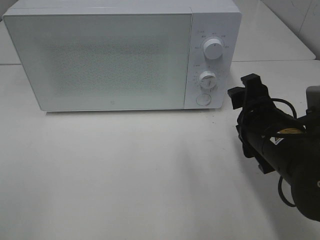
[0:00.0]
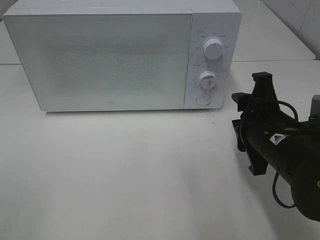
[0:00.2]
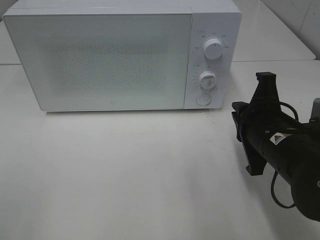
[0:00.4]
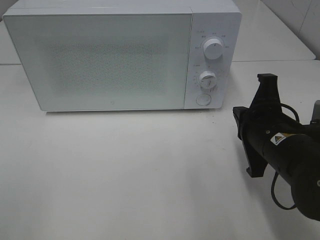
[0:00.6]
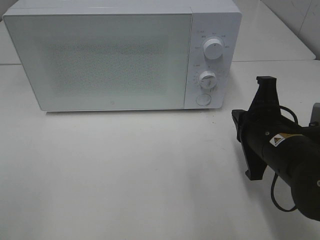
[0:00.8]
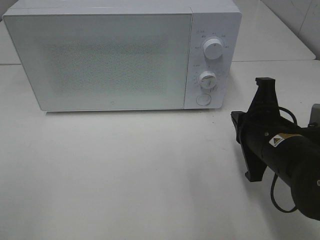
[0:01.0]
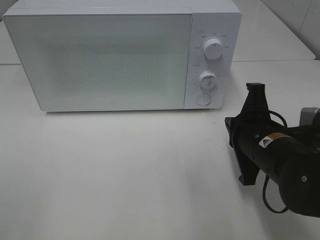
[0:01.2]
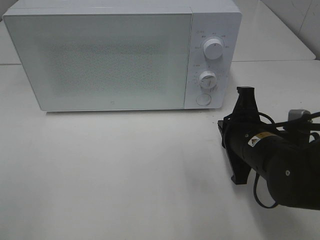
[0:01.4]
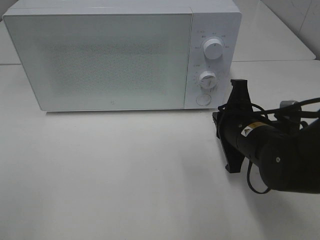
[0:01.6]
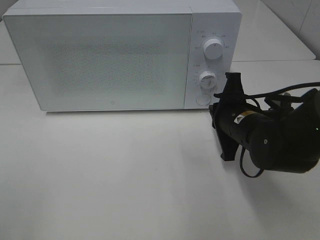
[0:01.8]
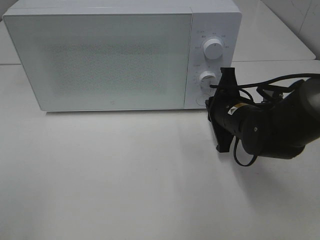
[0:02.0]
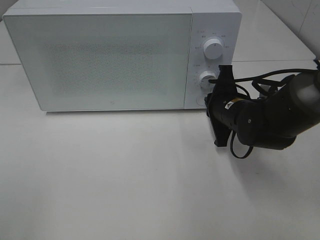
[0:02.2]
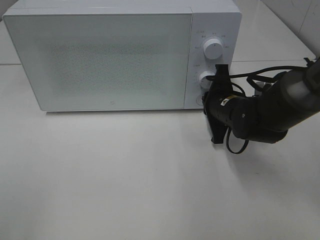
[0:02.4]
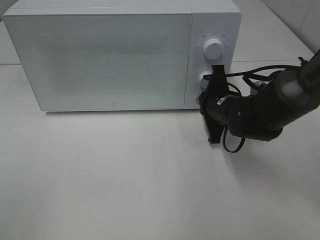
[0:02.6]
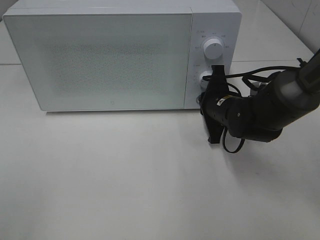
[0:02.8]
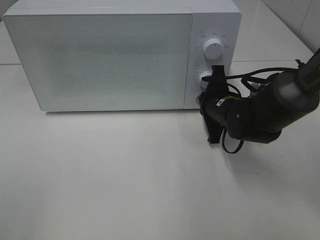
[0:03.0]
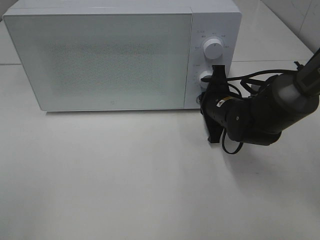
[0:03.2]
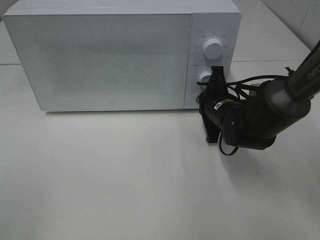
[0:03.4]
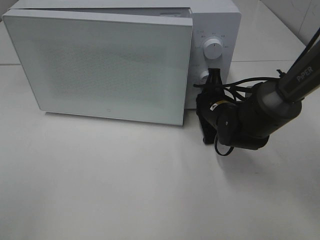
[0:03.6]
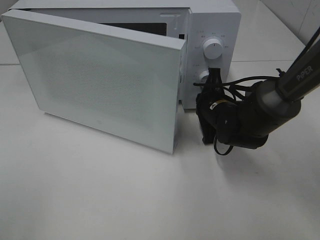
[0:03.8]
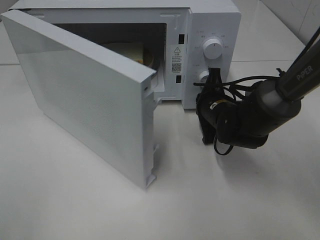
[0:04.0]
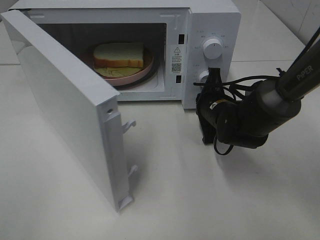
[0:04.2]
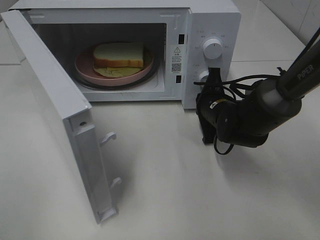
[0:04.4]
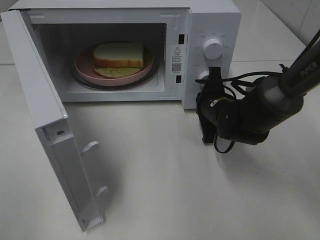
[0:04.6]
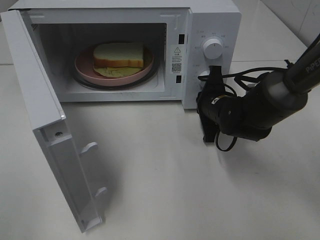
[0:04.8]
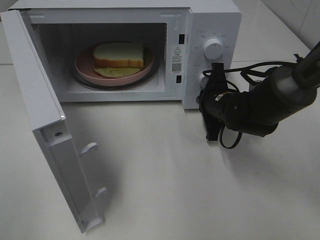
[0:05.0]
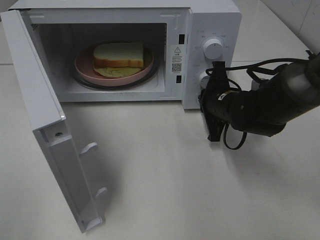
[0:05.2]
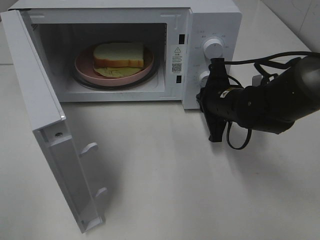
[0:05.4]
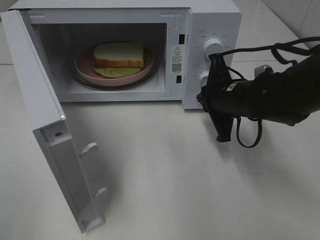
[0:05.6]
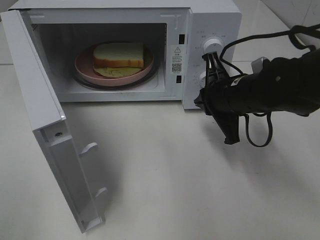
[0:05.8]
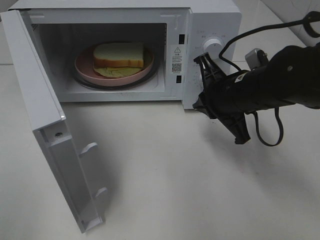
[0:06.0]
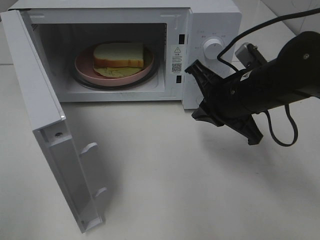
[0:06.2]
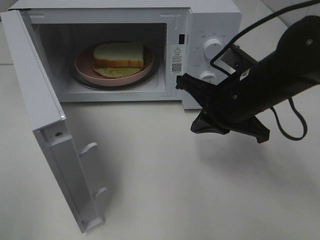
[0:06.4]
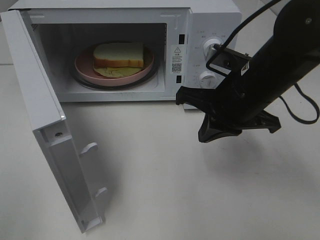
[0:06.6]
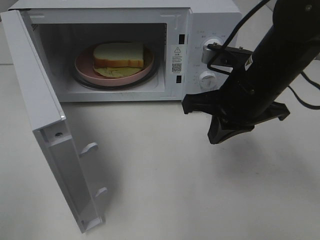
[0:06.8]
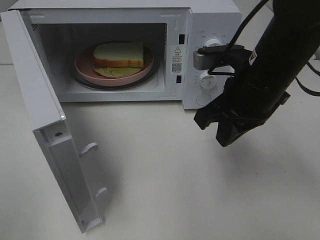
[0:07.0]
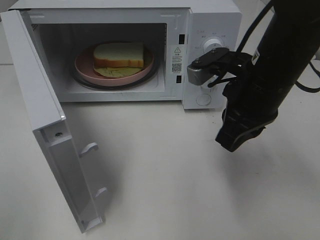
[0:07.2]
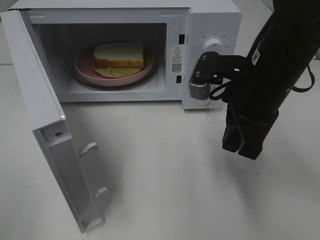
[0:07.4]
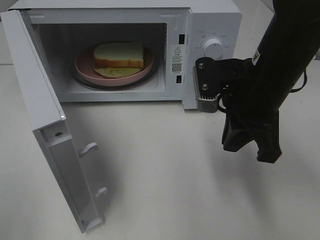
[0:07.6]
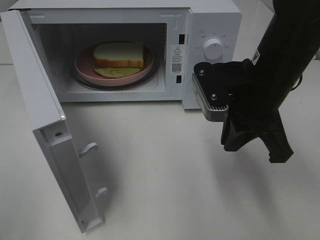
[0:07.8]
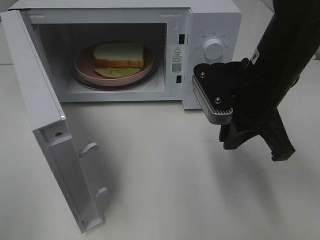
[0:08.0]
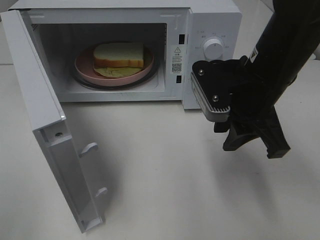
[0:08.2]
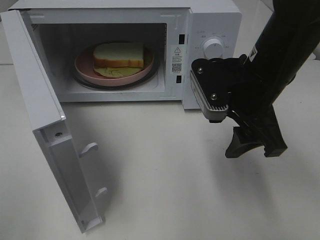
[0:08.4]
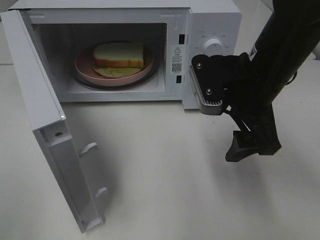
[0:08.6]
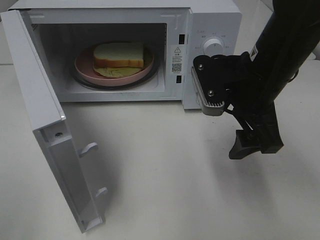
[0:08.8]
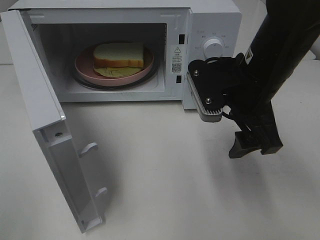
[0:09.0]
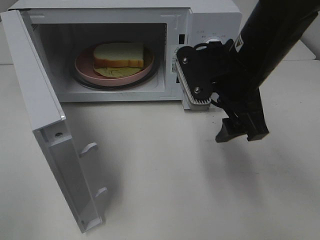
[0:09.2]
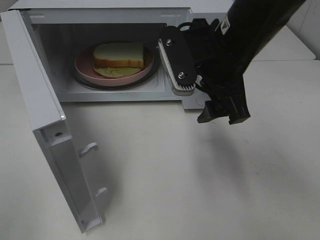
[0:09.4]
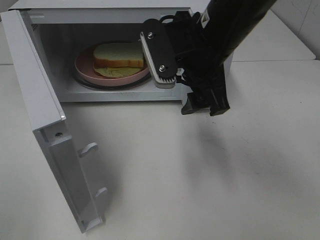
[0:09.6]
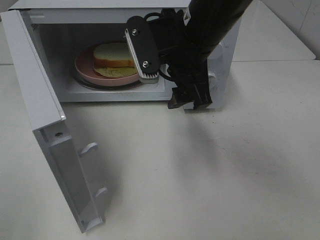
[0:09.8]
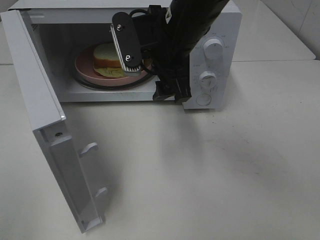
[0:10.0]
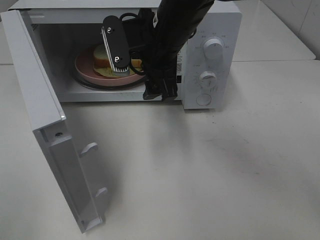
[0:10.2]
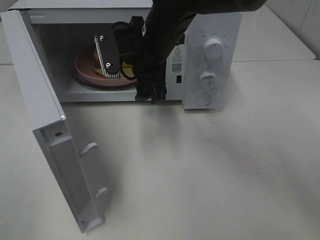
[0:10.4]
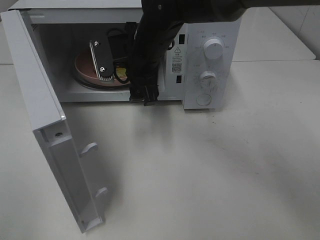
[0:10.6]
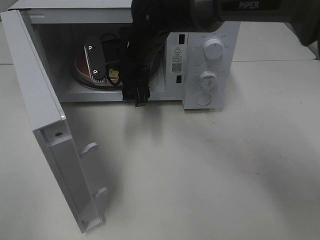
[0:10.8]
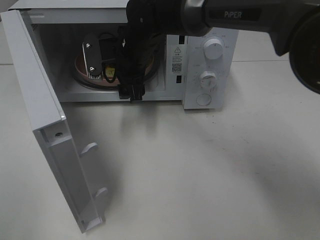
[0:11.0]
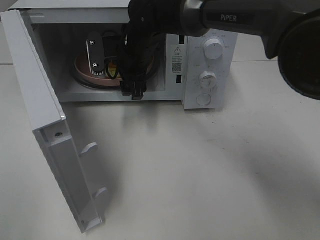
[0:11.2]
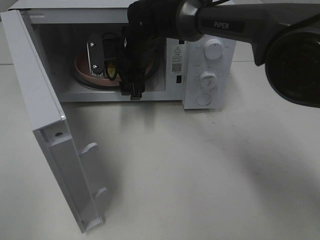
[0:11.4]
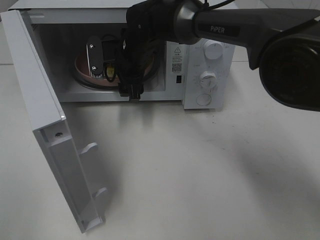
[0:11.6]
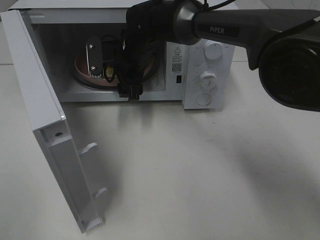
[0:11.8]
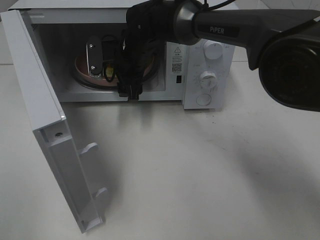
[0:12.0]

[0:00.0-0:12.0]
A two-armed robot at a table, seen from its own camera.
Task of the whole recording: Heat Sandwich.
Step, 0:00.0 to 0:05.6: Right hand: press the switch.
0:00.0 to 0:01.6: The right gripper ends up some 5 cm from where it was, and closes up.
0:01.6 to 0:03.0: The right gripper travels forward by some 10 cm.
0:04.4 to 0:06.0: The right gripper shifts about 10 cm upward and backward.
0:06.0 to 0:07.6: The right gripper heads upward, covering some 5 cm.
0:07.6 to 0:09.0: The right gripper opens.
0:09.0 to 0:10.4: The right gripper shifts some 15 cm to the left and forward.
0:10.4 to 0:12.0: The right gripper is displaced forward and downward by some 10 cm.

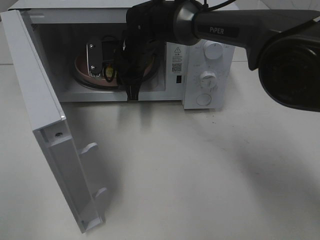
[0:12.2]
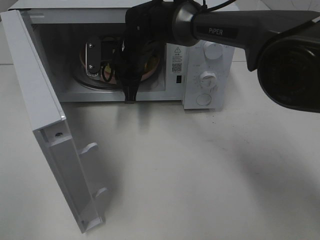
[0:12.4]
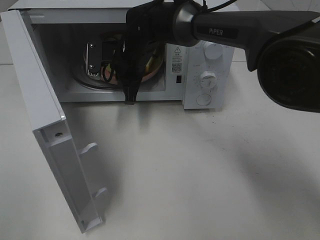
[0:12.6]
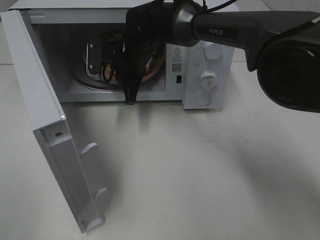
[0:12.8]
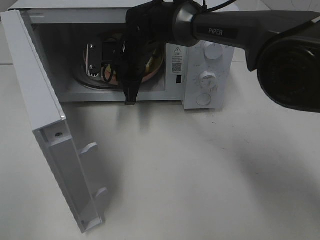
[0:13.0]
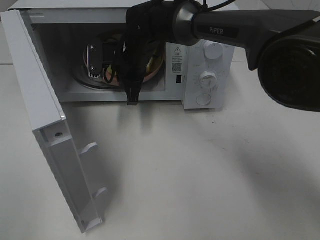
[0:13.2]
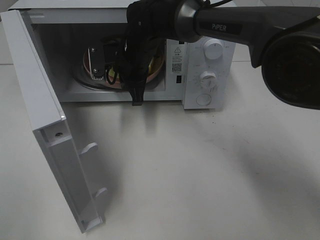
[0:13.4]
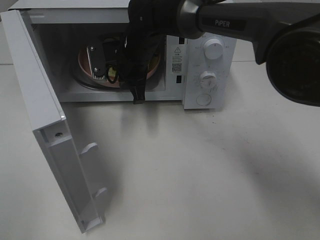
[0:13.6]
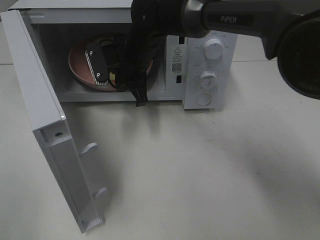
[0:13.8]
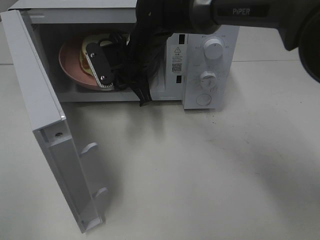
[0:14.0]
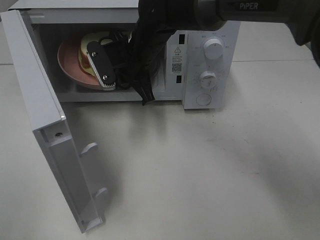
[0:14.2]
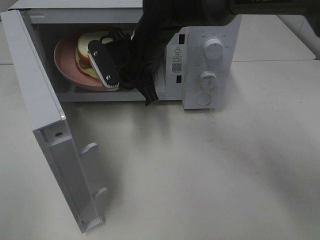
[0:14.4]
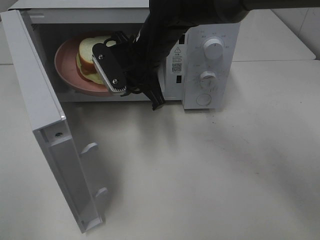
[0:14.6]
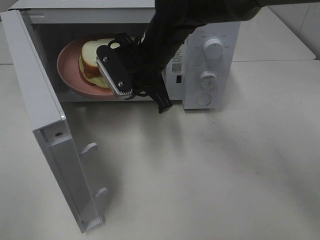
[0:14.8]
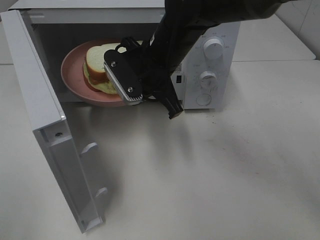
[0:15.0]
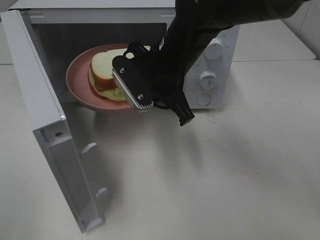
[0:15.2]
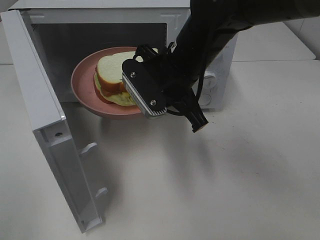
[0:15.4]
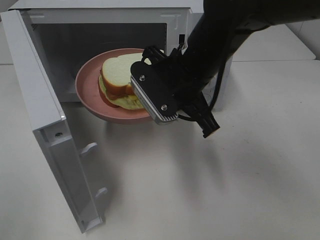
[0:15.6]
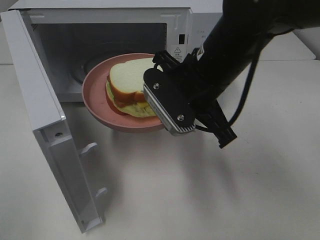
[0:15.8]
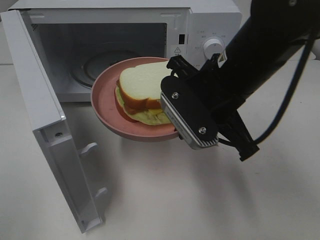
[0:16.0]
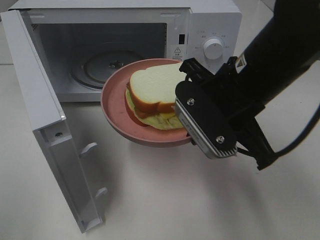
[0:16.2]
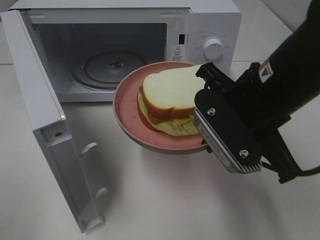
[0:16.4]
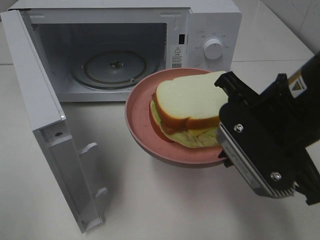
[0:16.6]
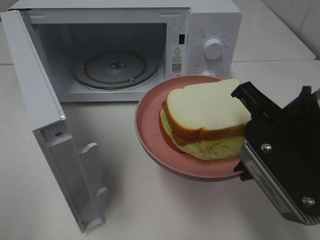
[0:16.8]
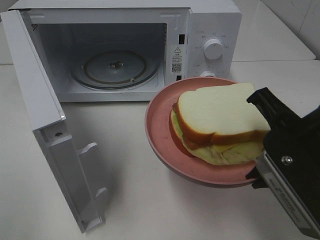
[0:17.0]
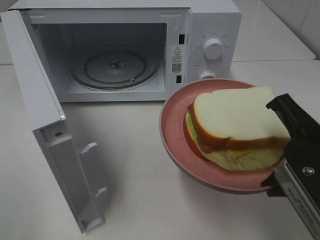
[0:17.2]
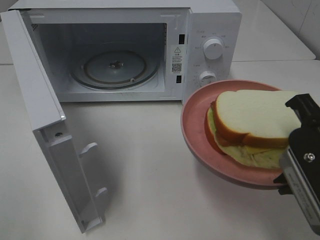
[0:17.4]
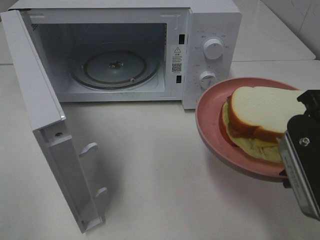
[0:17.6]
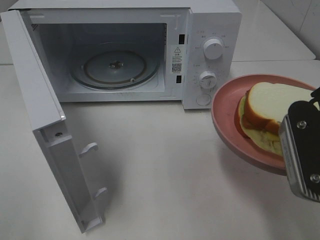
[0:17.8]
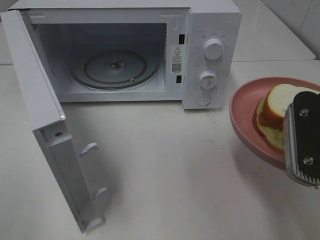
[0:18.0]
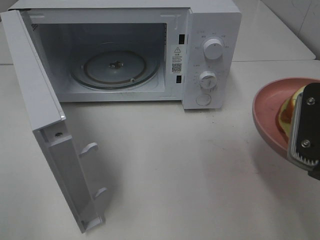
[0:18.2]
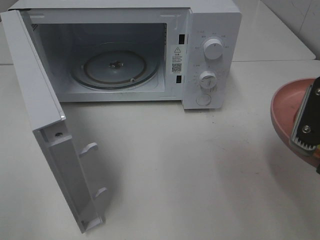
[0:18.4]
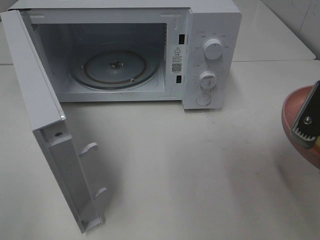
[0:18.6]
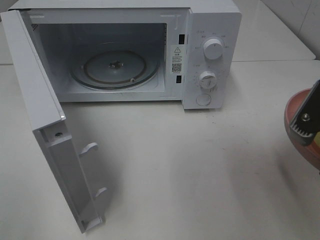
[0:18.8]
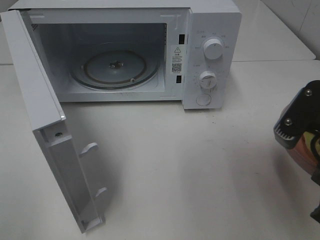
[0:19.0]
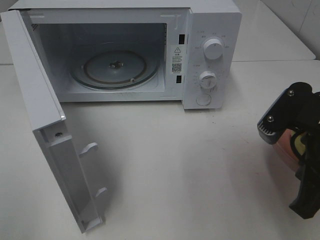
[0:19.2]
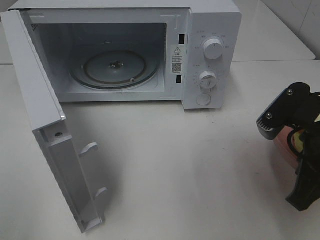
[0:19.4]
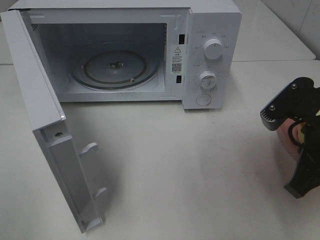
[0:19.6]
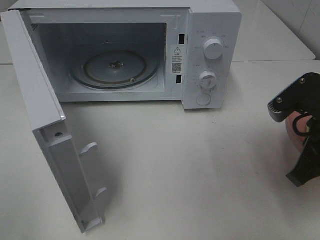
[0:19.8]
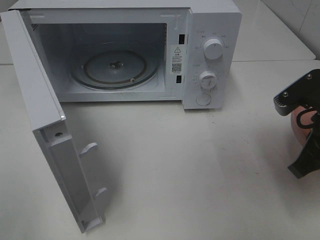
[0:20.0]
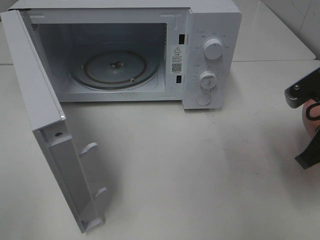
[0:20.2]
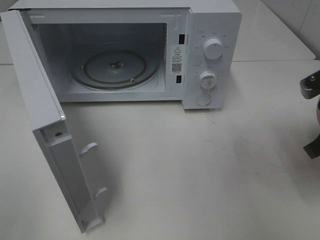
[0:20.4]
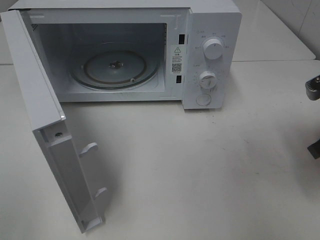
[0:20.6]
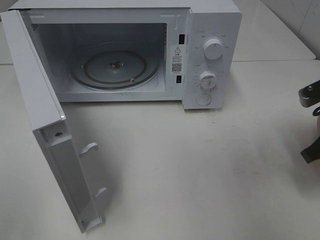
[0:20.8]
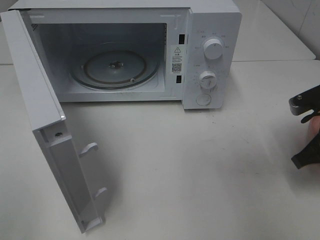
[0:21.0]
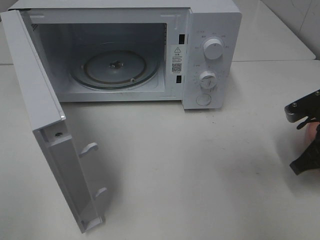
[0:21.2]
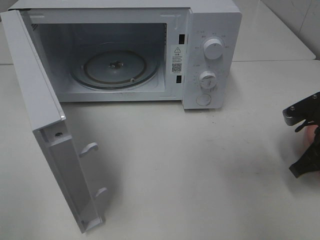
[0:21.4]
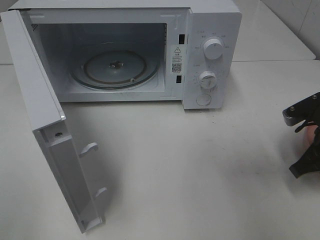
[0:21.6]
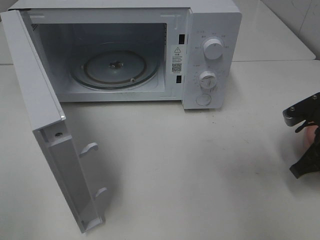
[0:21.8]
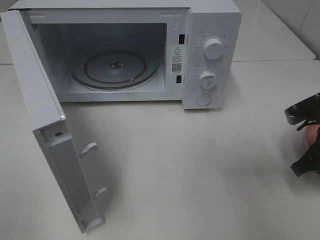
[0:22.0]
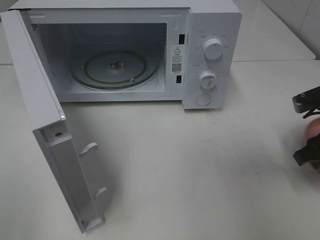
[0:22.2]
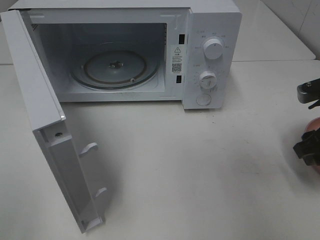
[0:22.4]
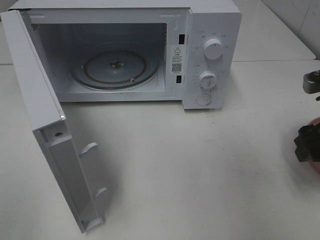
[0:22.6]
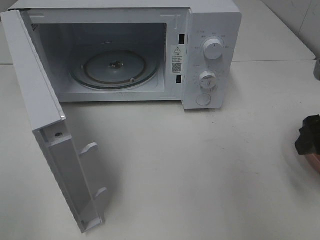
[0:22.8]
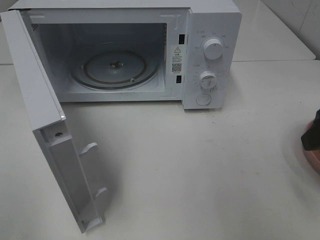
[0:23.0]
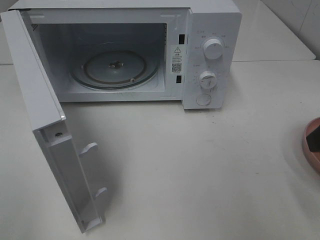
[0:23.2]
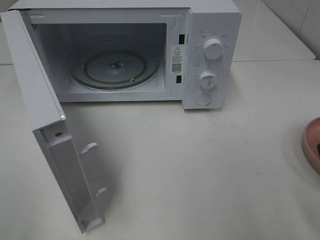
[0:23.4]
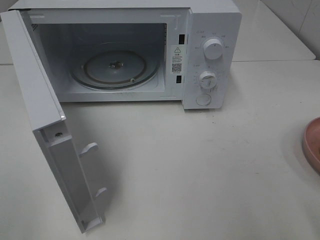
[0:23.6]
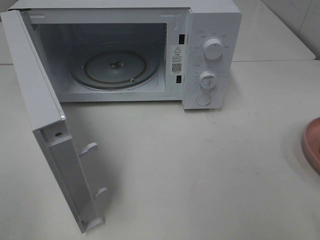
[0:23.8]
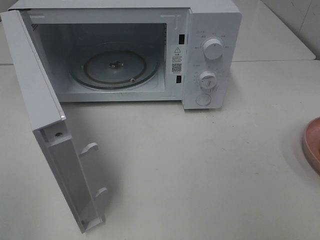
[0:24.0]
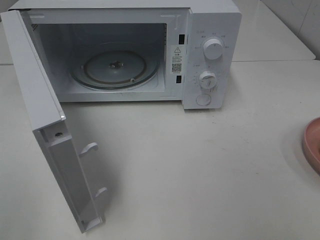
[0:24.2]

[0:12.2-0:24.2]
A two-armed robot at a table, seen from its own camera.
Task of the whole recording: Heat Sandwich.
Step, 0:12.4 to 0:22.6: Right hand: place the plate on the table.
0:12.2 to 0:13.8: The grippers stay close to where they were, moving slightly.
0:13.8 to 0:15.2: The right gripper moves backward and to the right, some 10 cm.
0:15.2 to 0:16.6: The right gripper goes some 20 cm backward and to the right.
0:16.6 to 0:18.2: The right gripper is displaced to the right by about 5 cm.
0:18.2 to 0:19.8: The right gripper goes approximately 5 cm forward.
0:19.8 to 0:21.2: The right gripper heads downward and to the right, covering about 10 cm.
0:21.2 to 0:22.6: The right gripper is displaced upward by about 5 cm, and opens.
0:22.6 to 0:24.2: The right gripper goes some 25 cm backward and upward.
